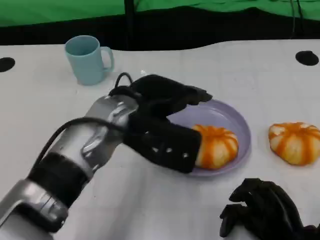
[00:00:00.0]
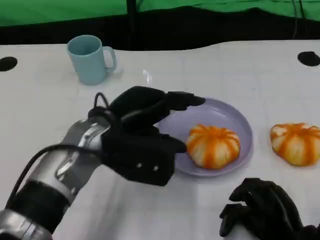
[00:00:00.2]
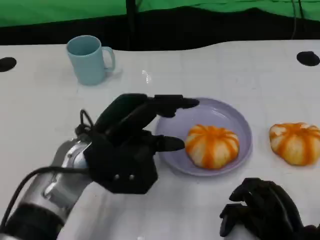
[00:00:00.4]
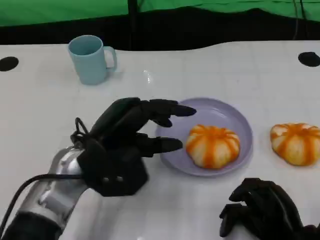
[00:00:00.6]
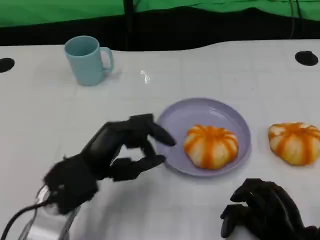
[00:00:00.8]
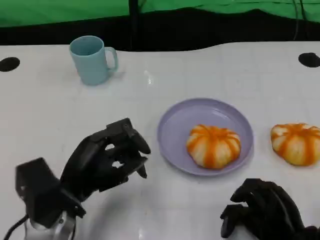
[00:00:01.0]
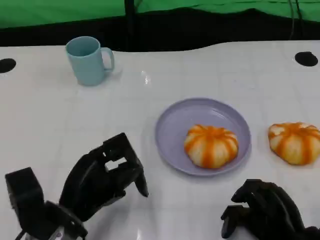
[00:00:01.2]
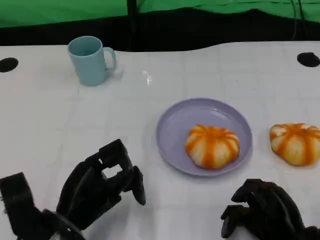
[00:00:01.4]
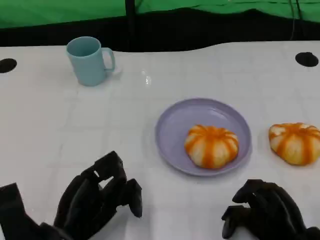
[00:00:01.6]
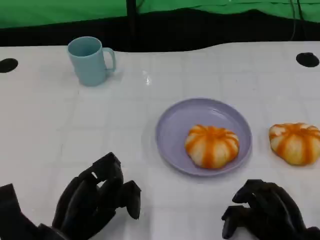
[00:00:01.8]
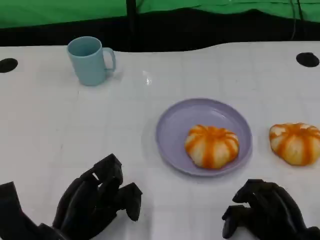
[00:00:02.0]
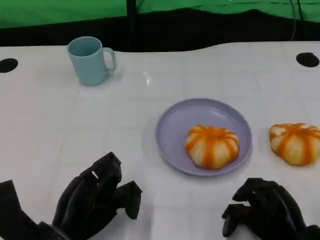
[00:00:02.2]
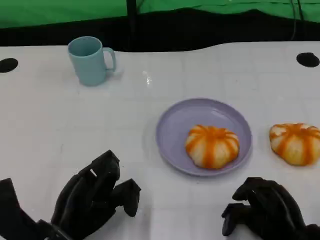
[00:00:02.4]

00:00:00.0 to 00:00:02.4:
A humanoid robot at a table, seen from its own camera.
Task of the whole recording: Grasp the bread from the table and place it into the plate.
00:00:00.0 to 00:00:01.2: The left hand goes approximately 15 cm downward, backward and to the left.

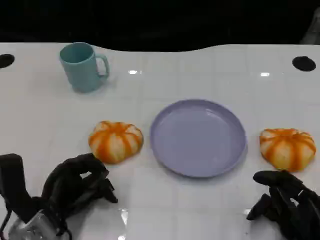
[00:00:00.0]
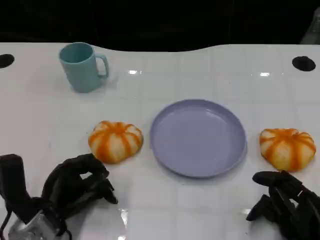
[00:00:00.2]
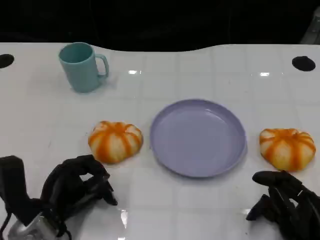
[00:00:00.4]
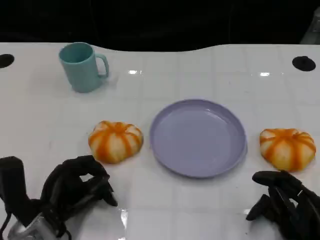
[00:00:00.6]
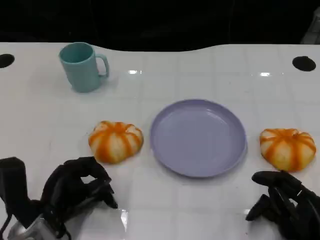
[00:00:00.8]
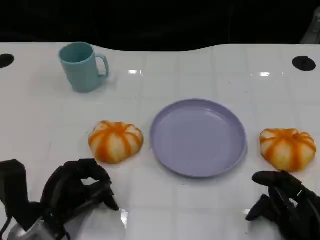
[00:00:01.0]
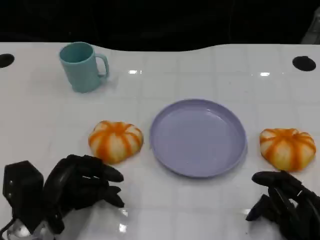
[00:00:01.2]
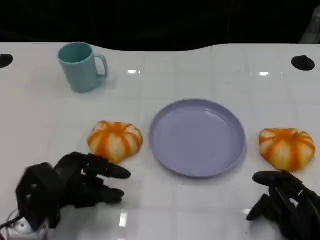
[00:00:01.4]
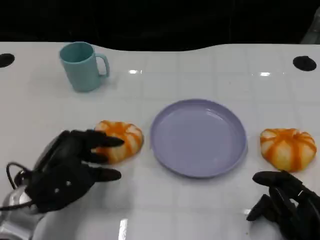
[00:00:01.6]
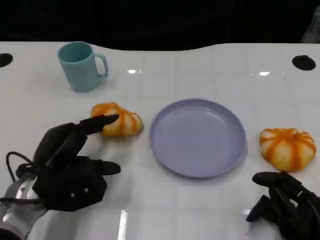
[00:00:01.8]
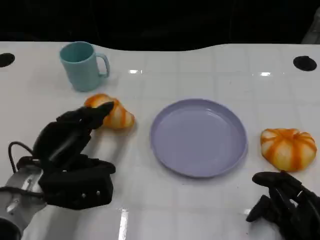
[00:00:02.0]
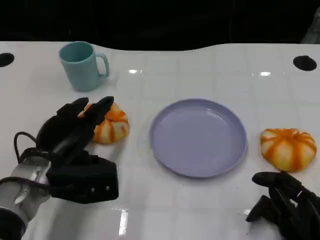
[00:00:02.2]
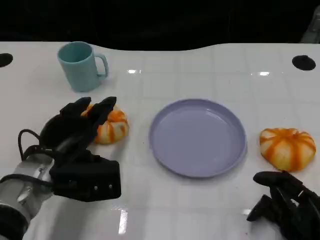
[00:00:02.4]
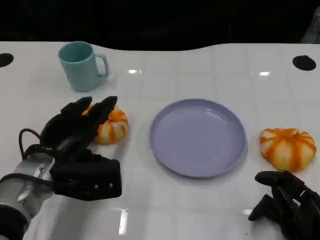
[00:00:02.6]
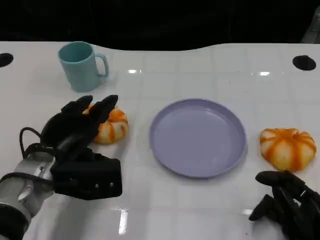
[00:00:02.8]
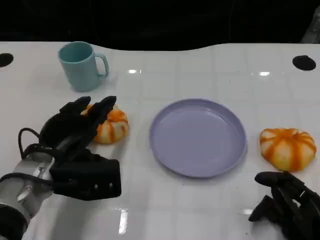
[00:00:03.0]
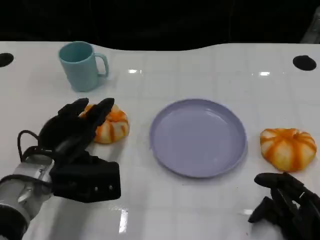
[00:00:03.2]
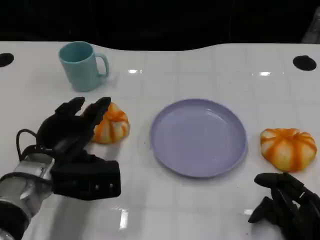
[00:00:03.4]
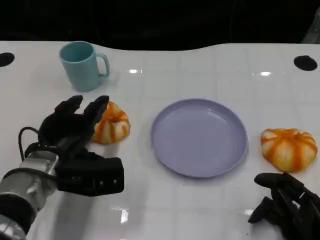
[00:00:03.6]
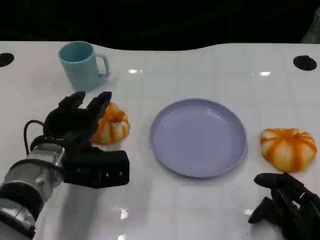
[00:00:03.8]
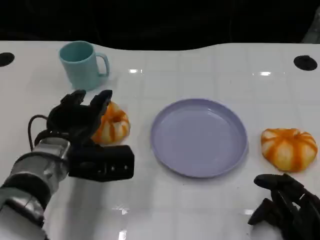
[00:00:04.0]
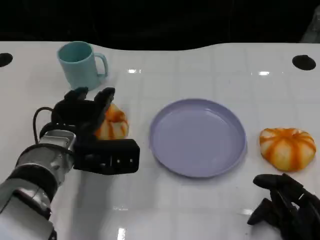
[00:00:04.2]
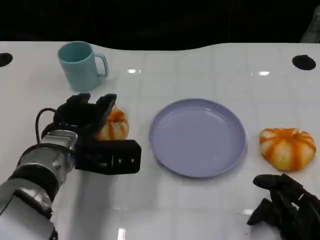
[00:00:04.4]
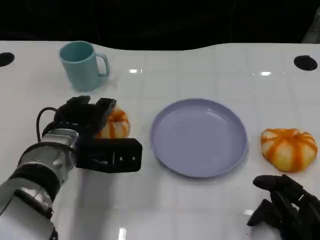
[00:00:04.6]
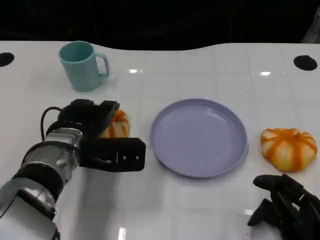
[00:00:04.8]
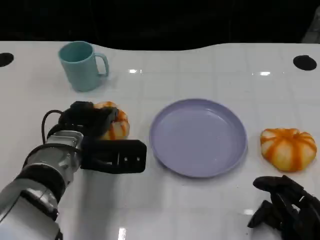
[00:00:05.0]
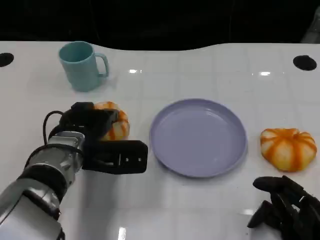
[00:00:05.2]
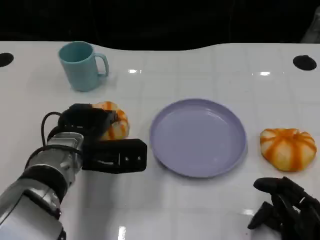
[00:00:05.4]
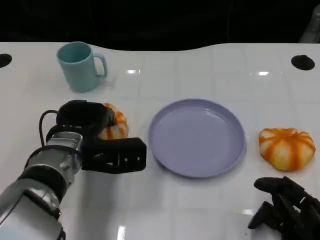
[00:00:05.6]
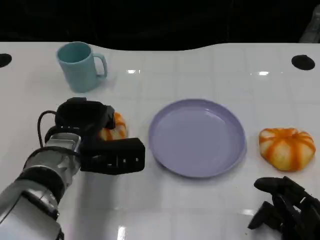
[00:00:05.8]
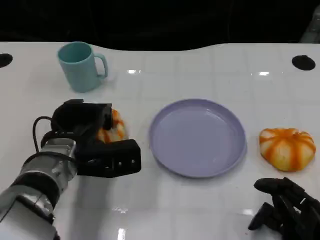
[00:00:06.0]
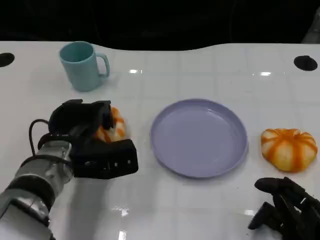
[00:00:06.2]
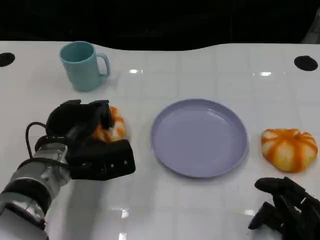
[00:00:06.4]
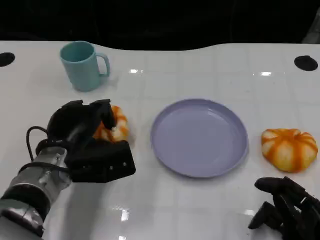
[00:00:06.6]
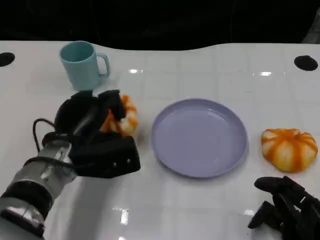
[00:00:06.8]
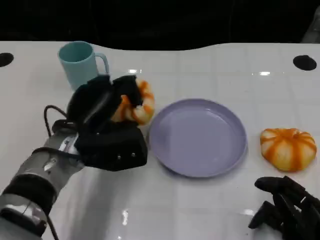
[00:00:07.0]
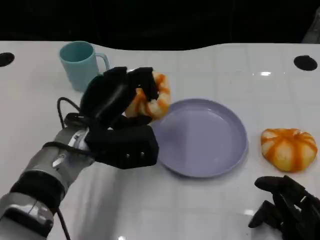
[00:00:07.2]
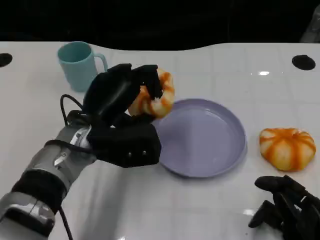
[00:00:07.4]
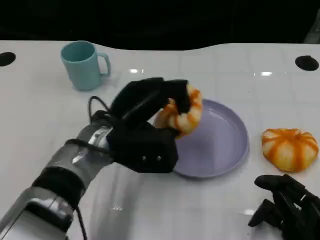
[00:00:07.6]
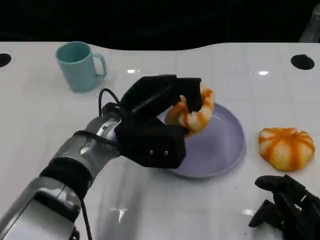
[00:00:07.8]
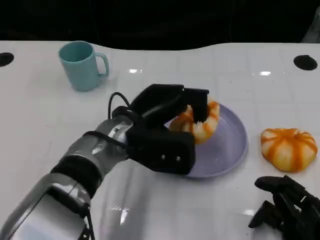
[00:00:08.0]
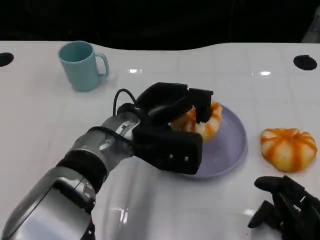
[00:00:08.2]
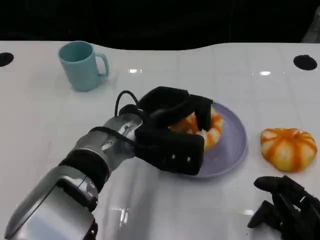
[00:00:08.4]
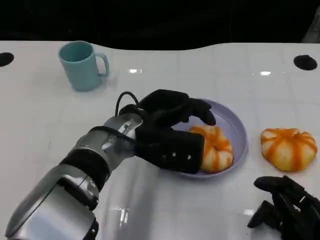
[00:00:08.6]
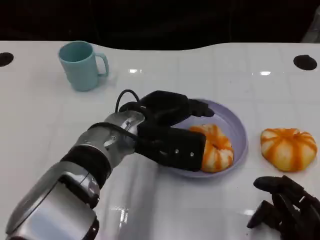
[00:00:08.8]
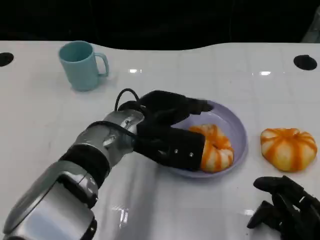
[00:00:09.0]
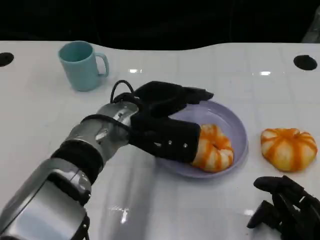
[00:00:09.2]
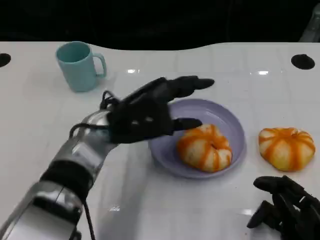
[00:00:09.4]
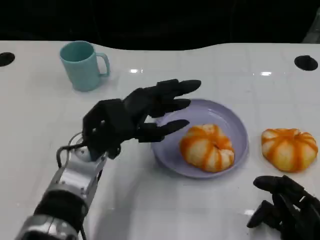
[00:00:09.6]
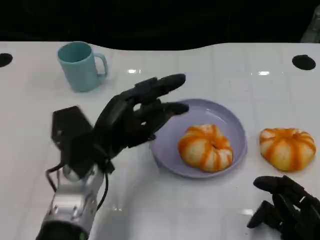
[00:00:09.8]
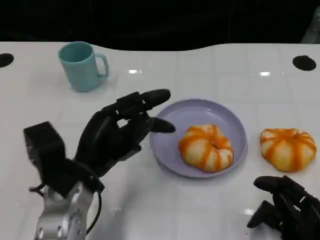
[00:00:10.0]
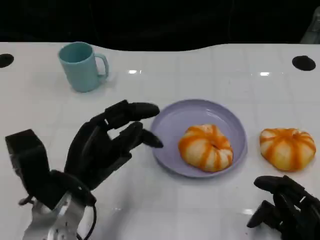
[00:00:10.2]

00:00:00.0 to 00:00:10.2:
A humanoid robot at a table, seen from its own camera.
Task of the whole recording: Grasp the bread from the table and place it into the plate.
00:00:01.4 to 00:00:03.0: The left hand shifts by approximately 5 cm.
00:00:03.0 to 00:00:04.4: The hands stay close to where they were, moving slightly.
00:00:04.4 to 00:00:05.8: The hands move only a little.
00:00:07.2 to 00:00:08.8: The left hand travels to the right by roughly 5 cm.
00:00:08.8 to 00:00:10.2: The left hand is displaced to the left and backward by some 15 cm.

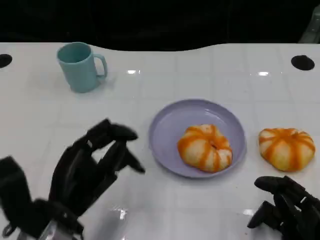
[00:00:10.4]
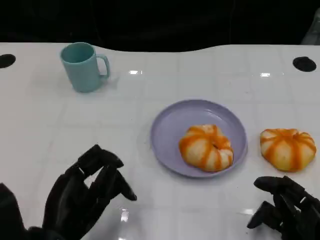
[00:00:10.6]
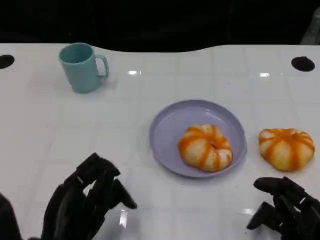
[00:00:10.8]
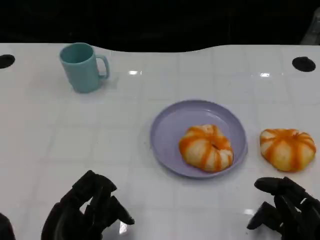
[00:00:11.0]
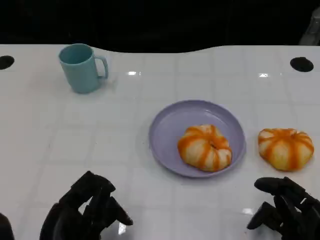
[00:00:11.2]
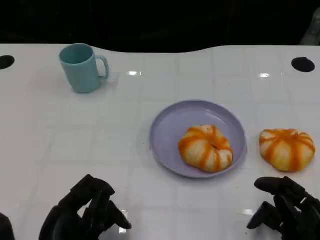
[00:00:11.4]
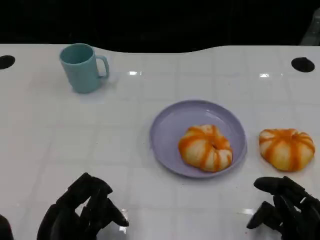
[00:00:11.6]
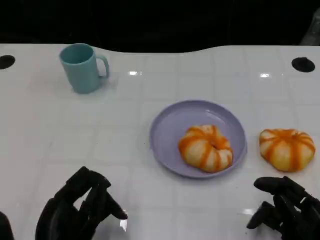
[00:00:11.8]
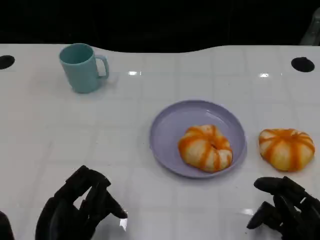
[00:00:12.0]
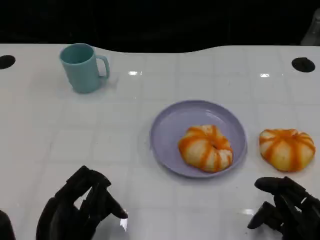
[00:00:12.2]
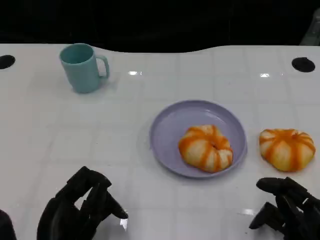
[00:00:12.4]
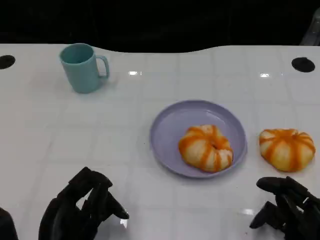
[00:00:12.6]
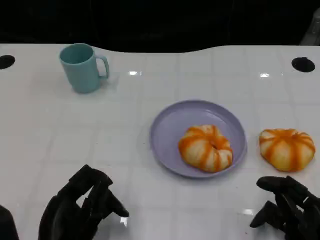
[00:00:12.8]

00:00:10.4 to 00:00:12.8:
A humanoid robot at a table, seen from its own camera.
Task of the whole recording: Grasp the bread from the table and place it into the plate.
00:00:10.4 to 00:00:11.6: The left hand is displaced backward by approximately 5 cm.
00:00:11.6 to 00:00:12.8: Both hands stay put.
